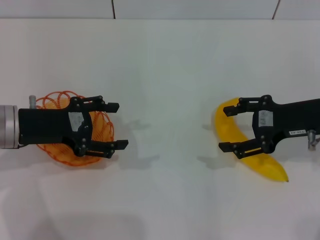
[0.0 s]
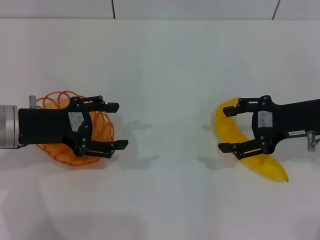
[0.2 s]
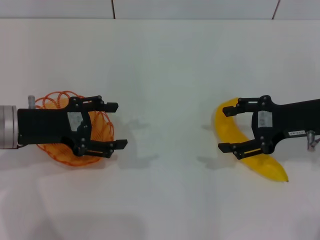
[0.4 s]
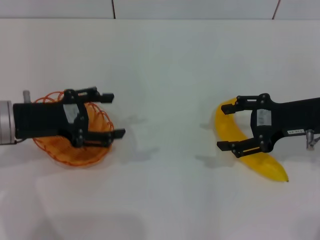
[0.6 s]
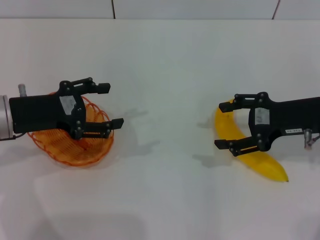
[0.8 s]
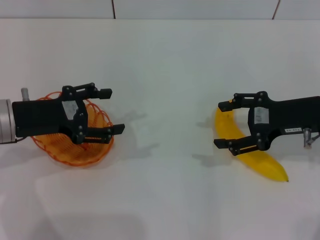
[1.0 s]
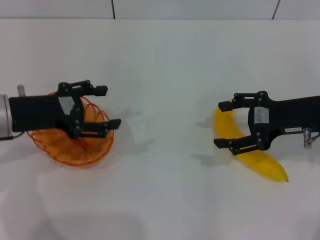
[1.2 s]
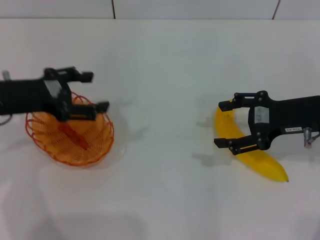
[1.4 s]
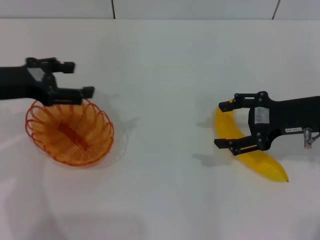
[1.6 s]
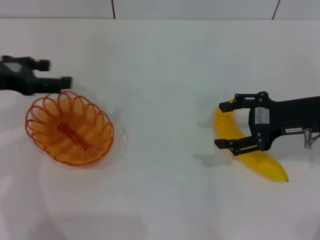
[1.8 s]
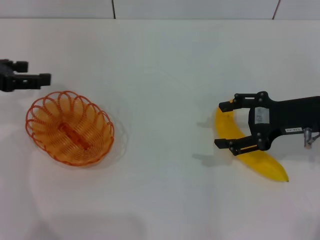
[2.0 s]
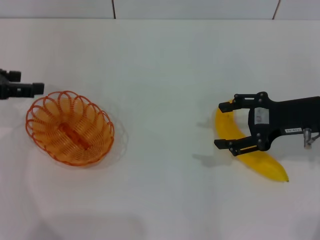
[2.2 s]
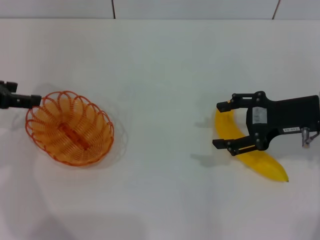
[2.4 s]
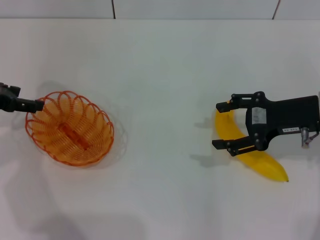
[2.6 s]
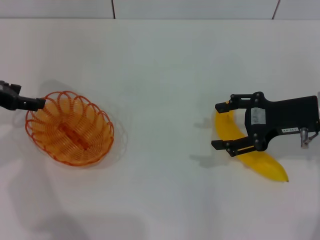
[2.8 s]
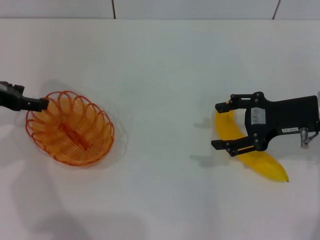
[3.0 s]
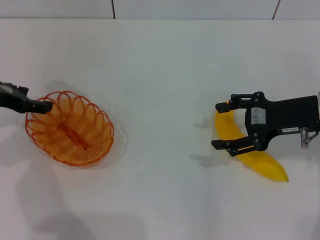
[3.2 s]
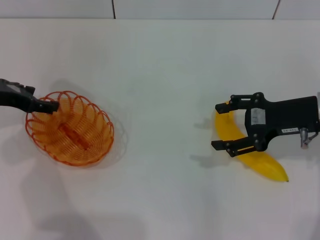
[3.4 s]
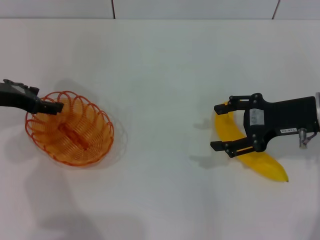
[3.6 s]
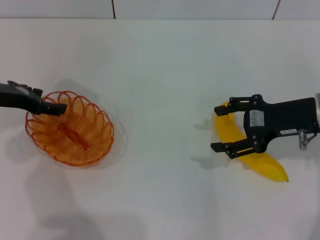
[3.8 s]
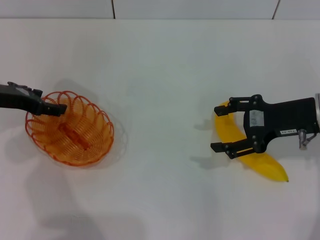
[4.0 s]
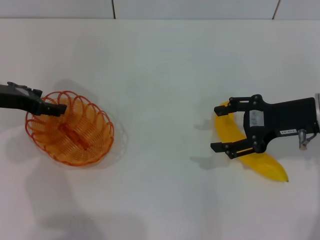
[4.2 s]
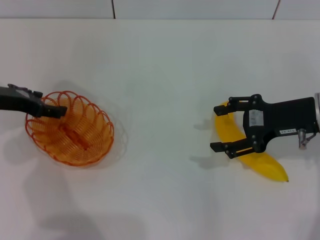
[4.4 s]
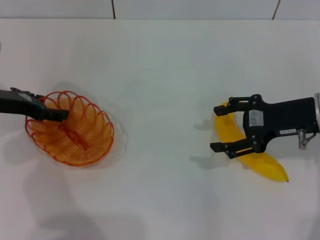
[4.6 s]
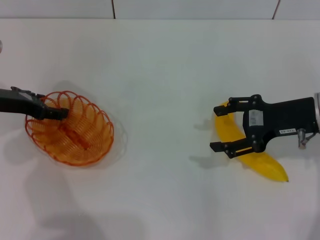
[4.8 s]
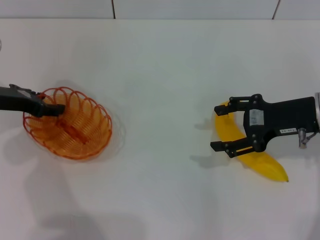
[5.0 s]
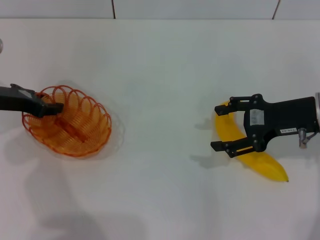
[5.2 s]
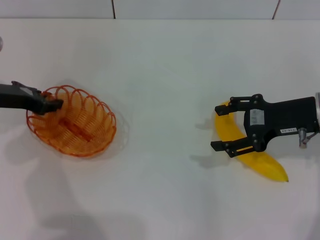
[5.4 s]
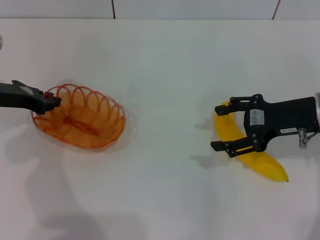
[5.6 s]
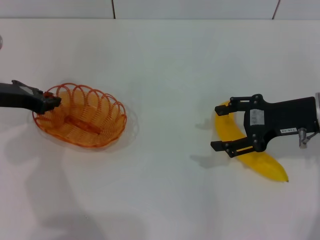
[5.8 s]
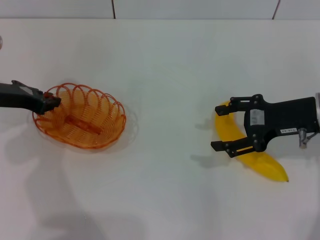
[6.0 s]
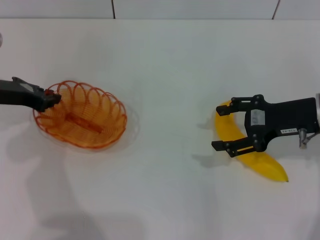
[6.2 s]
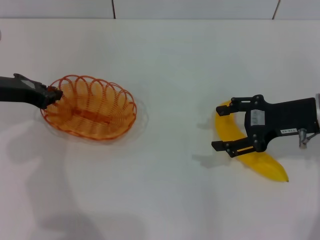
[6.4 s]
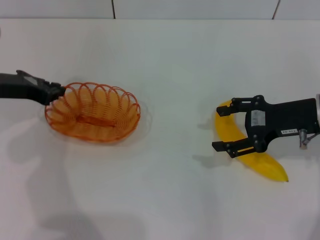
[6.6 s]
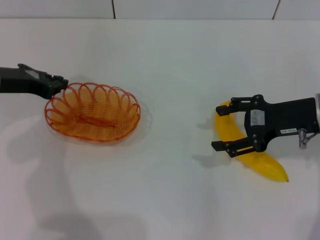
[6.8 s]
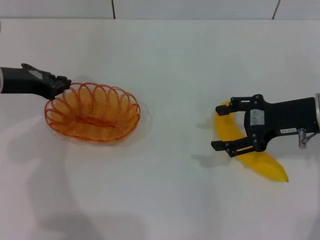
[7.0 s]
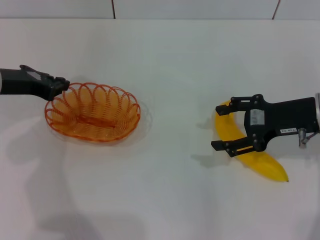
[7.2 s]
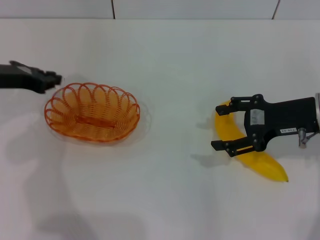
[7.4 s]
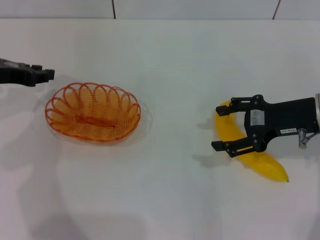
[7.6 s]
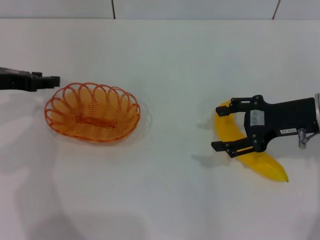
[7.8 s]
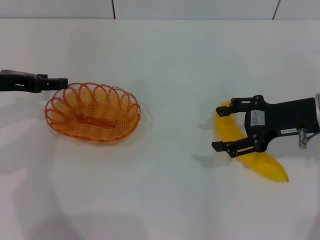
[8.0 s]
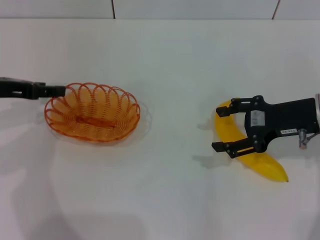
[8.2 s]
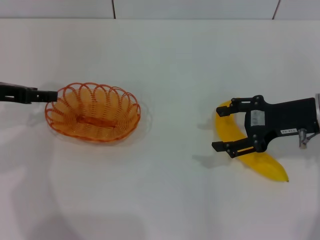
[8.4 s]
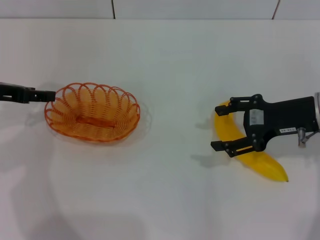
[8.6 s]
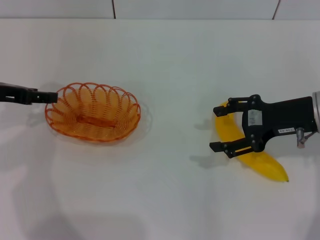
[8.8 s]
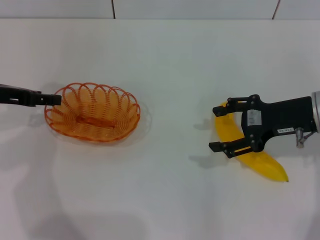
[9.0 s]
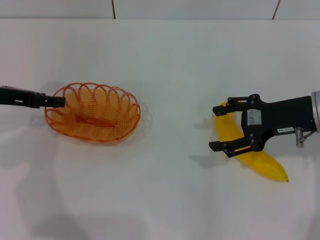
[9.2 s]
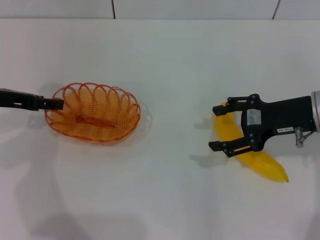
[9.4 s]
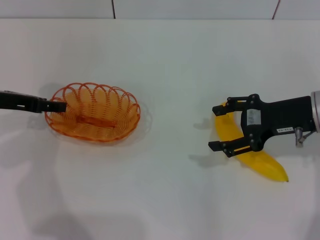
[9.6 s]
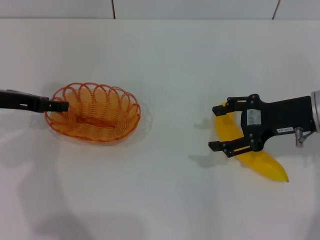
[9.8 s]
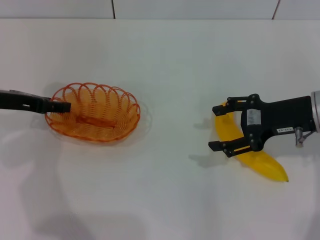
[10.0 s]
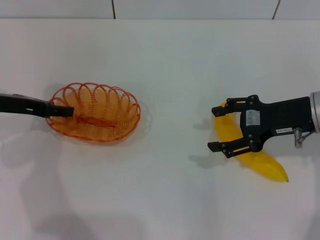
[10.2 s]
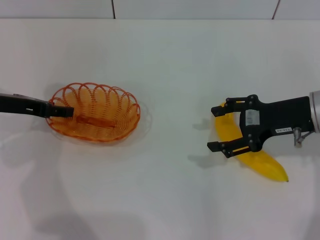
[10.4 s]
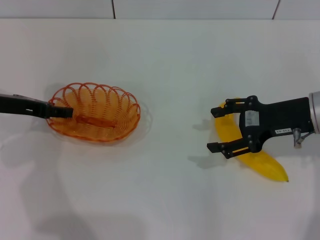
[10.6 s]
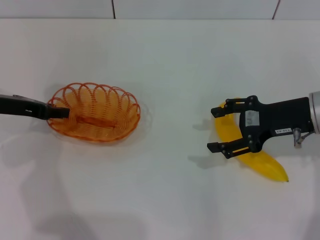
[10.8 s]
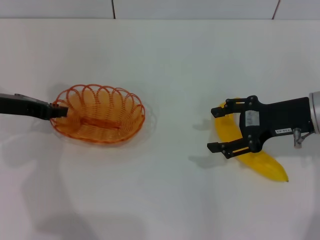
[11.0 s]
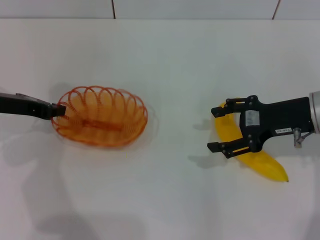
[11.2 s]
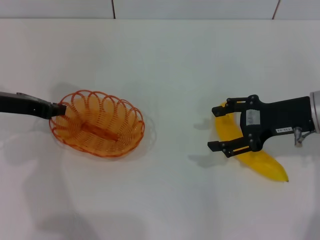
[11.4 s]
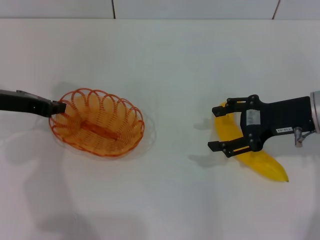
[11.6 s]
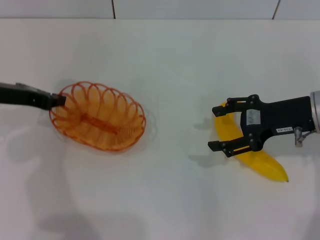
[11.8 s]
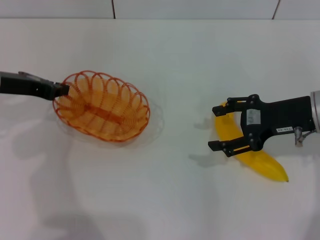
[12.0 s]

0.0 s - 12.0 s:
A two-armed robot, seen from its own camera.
0.0 s - 1.6 s: The left gripper changes place by roughly 5 cm.
1.6 s - 3.0 s: The left gripper changes place by some 5 cm.
3.0 s - 4.4 s: There are only small adjustments of the grippers.
4.4 s - 6.0 s: The left gripper closes up.
6.0 s - 7.6 s: The grippers move only a little.
7.6 s - 9.0 s: The left gripper opens up.
9.0 s - 10.4 s: The grippers make only small movements.
10.4 s - 12.0 s: The left gripper closes.

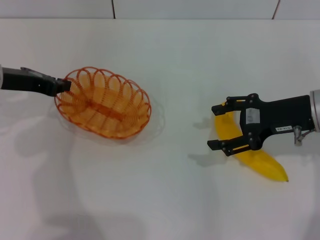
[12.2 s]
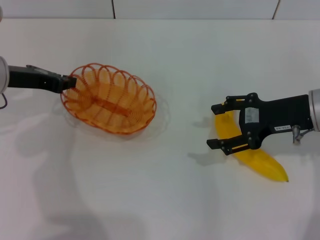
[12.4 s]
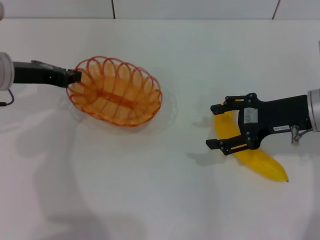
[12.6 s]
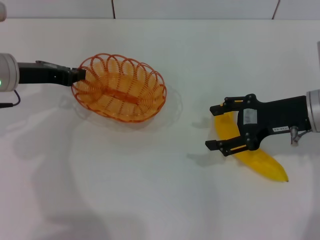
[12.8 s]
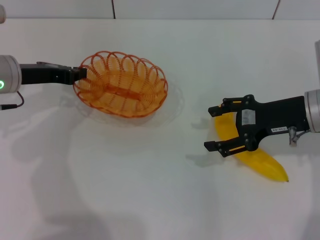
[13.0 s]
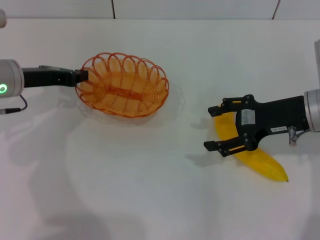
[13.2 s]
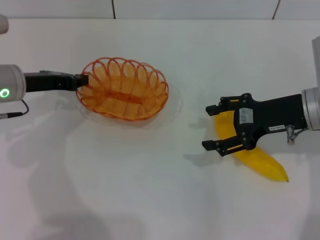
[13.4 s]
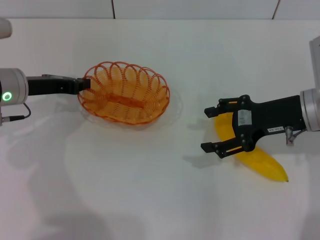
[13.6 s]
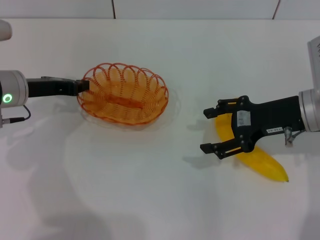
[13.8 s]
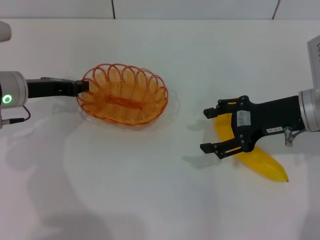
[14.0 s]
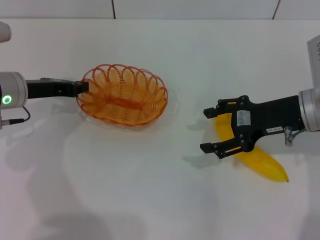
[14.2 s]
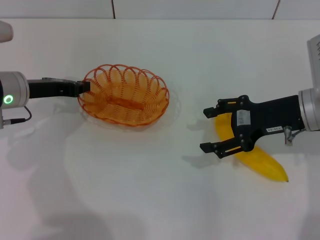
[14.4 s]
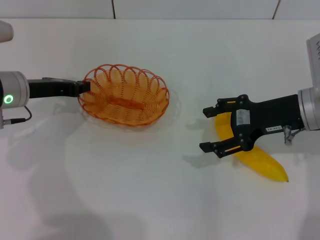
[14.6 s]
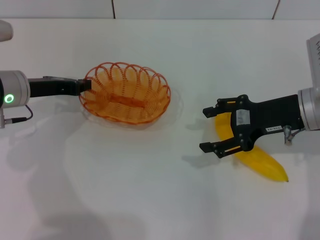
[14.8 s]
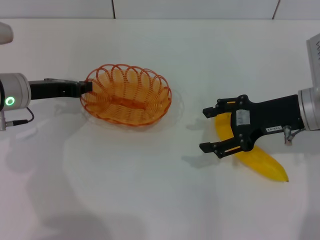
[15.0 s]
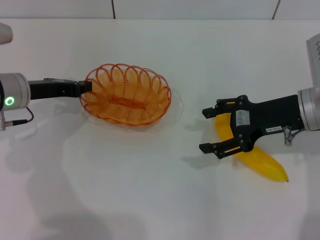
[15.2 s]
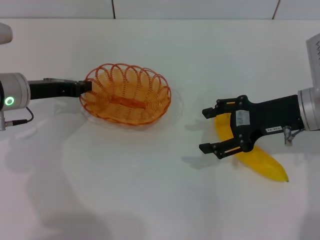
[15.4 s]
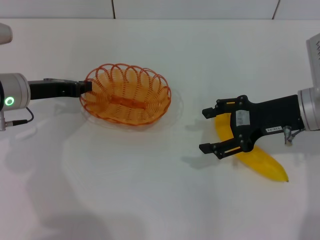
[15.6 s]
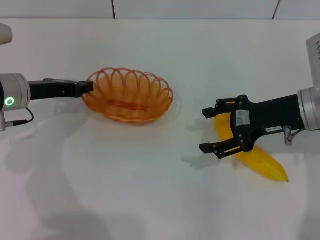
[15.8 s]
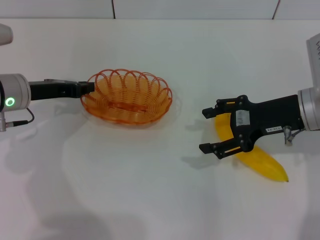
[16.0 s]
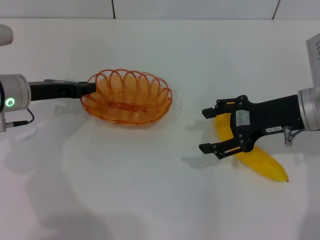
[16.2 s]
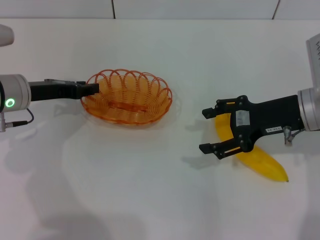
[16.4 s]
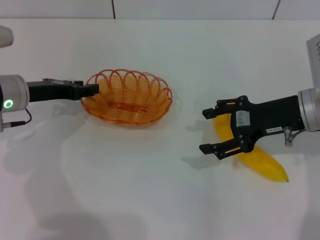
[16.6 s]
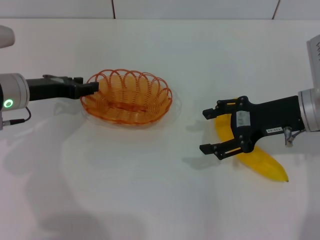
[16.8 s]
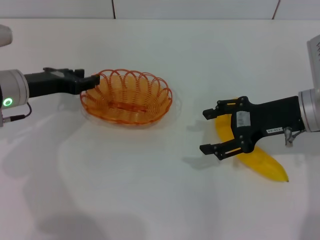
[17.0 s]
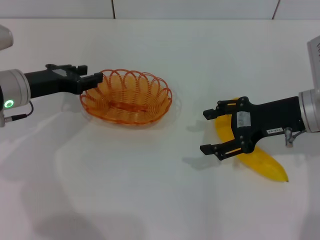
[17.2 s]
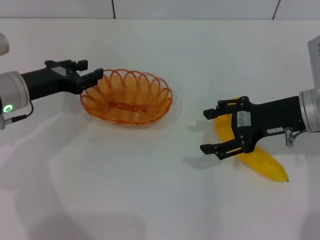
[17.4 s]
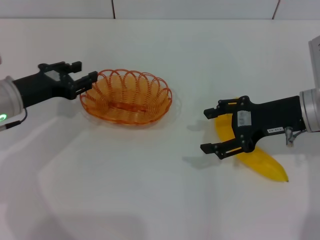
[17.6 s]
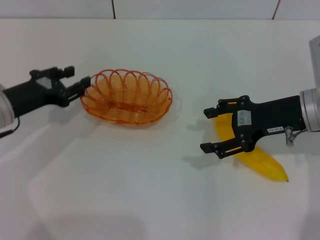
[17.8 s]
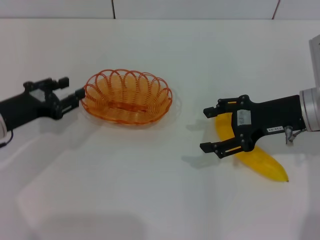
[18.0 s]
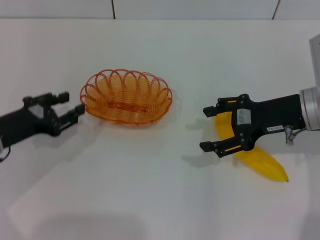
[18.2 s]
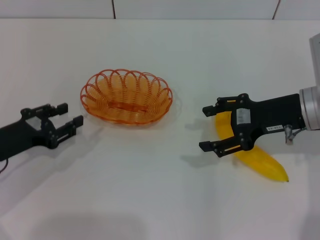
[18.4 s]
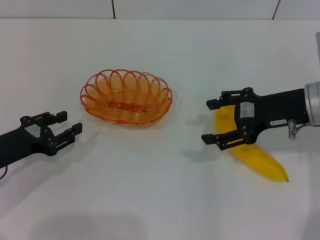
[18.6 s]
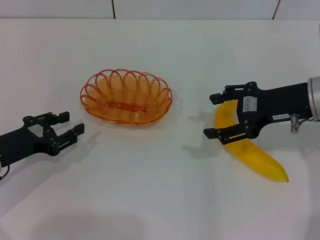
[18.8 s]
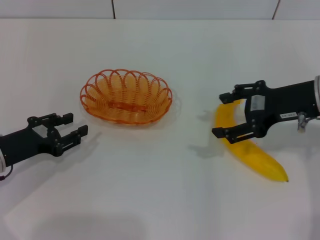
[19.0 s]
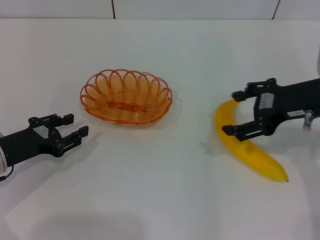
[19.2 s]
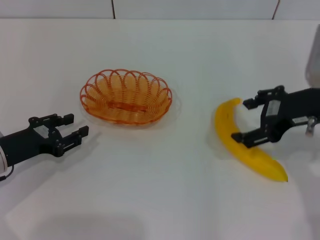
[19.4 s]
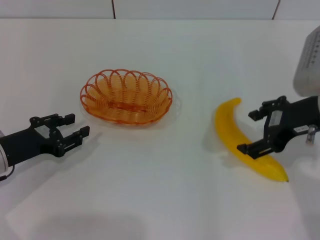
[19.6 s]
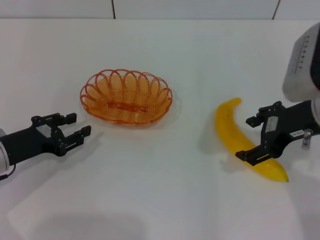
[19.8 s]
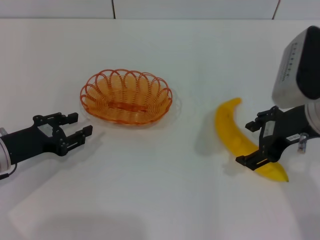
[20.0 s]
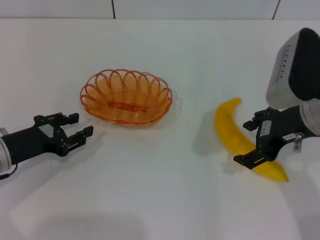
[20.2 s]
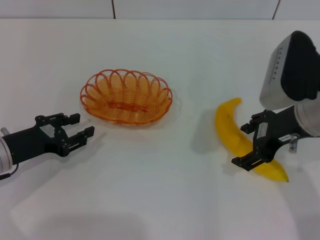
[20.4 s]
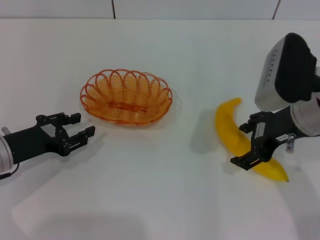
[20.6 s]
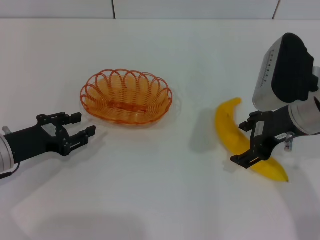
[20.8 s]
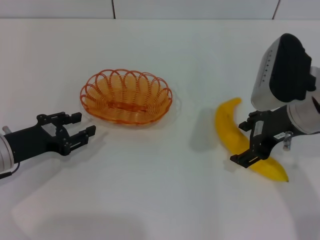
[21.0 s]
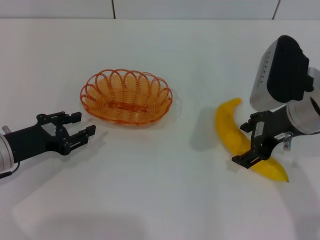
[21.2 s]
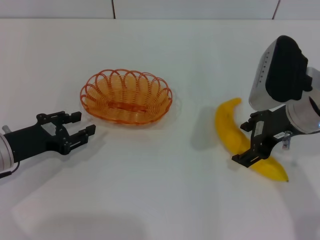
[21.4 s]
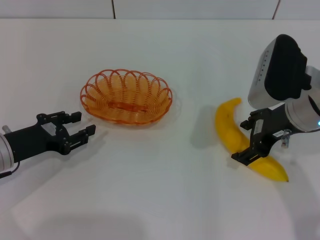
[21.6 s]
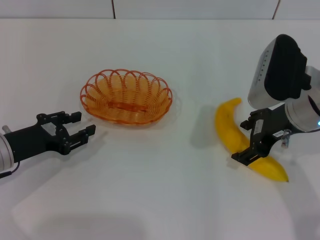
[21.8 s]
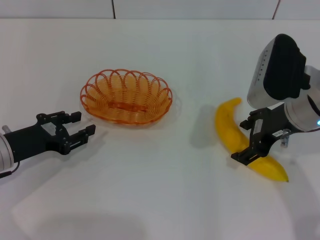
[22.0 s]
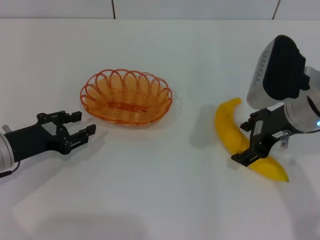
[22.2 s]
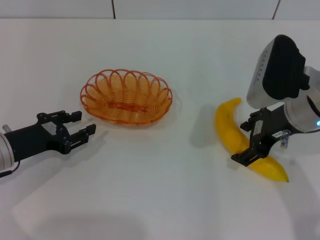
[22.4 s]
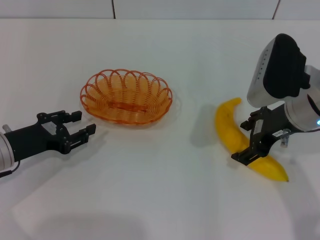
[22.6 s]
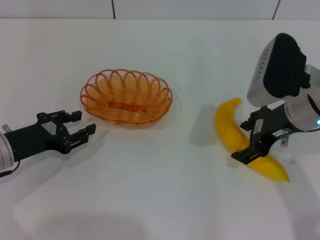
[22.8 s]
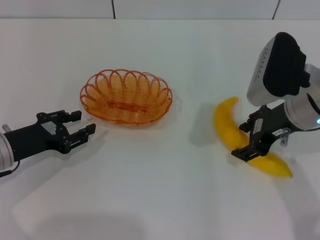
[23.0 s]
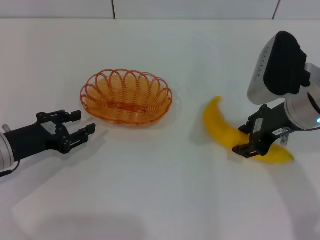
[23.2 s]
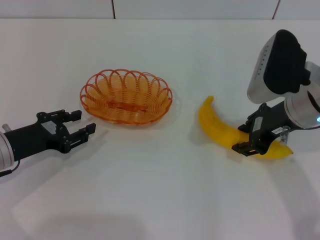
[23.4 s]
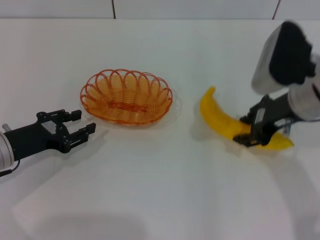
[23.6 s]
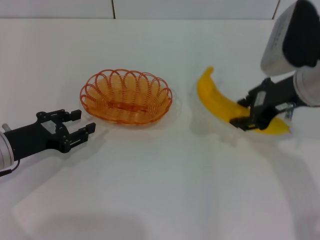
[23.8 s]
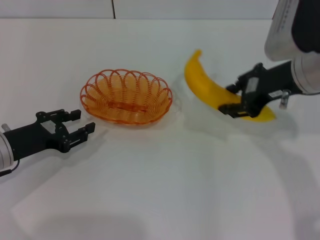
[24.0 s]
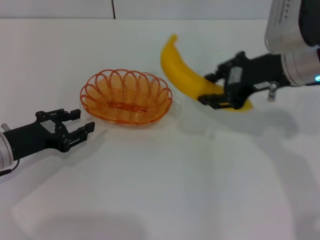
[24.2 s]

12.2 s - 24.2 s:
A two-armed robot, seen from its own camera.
Step, 12.4 s - 17.6 s: Place the basket in the center of view with the left gripper.
Step, 18.0 s - 23.8 s: Pick up the banana with the right gripper.
12.2 s - 13.8 s: The left gripper shifts by approximately 5 cm.
13.8 s - 15.2 s: The two grippers keep their place.
15.2 s - 16.6 s: The left gripper opens.
16.6 s - 18.2 s: The left gripper heads backward, covering roughly 10 cm.
18.2 s - 19.8 s: The right gripper changes place by about 5 cm.
19.8 s - 21.2 s: The grippers stay close to where they were, moving slightly.
21.2 s - 22.6 s: The two grippers keep their place.
22.6 s - 24.2 s: The right gripper moves upward, some 5 cm, and closes its fingers.
